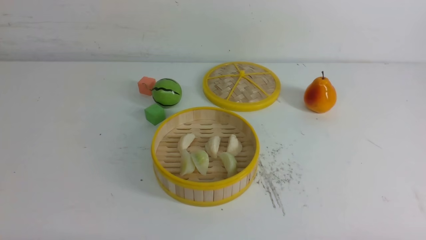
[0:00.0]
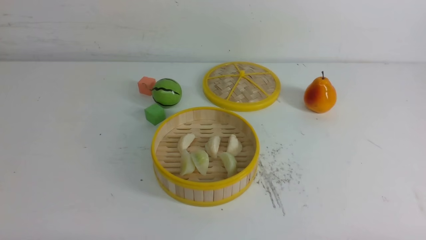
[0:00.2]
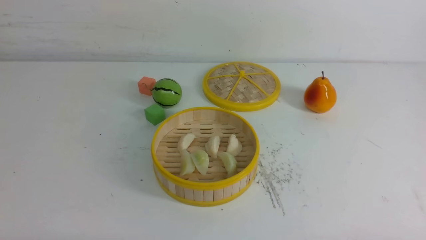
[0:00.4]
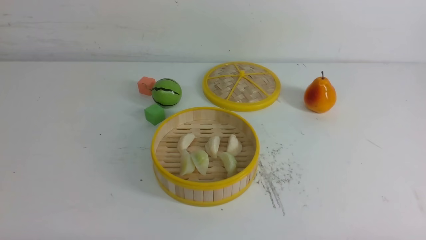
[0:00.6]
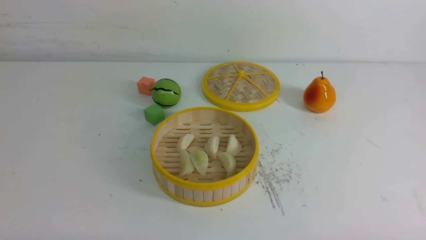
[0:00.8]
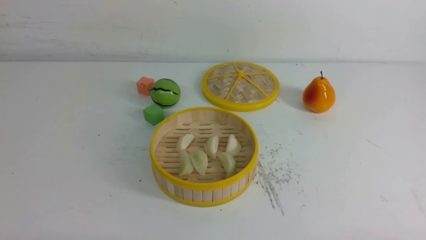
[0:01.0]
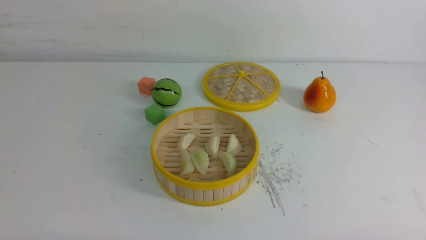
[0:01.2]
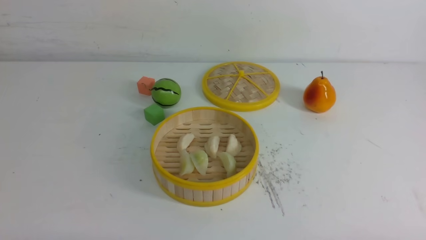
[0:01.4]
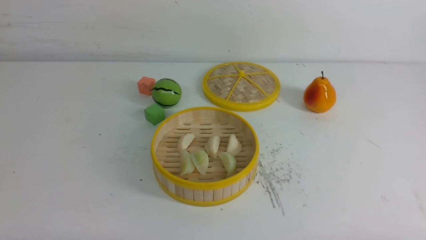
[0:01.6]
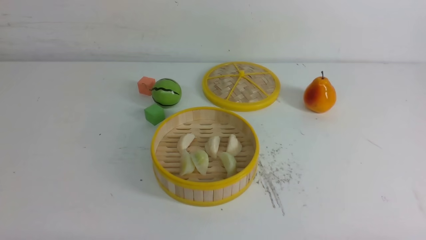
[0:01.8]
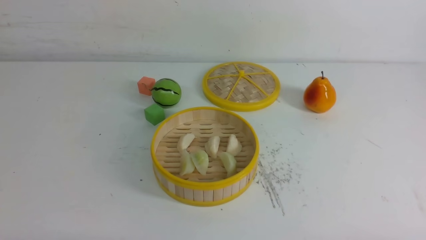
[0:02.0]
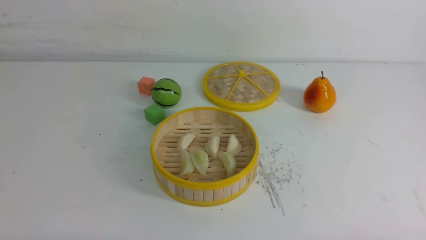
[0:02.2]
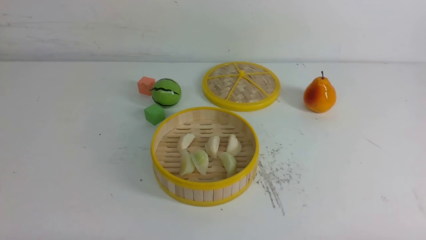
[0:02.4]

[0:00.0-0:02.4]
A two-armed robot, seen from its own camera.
Task of the whole recording: put the dumplings into the steamer on the white table.
0:00.0 to 0:02.4: The two grippers keep their place.

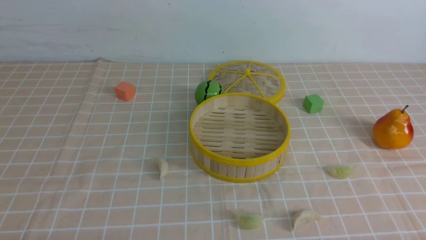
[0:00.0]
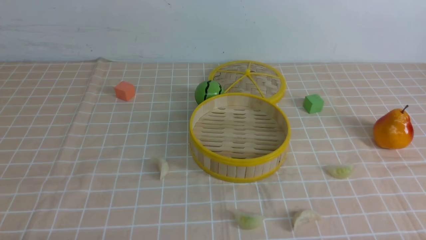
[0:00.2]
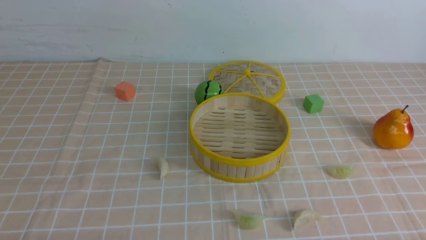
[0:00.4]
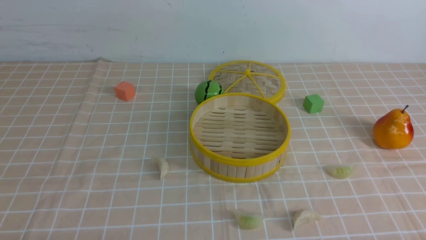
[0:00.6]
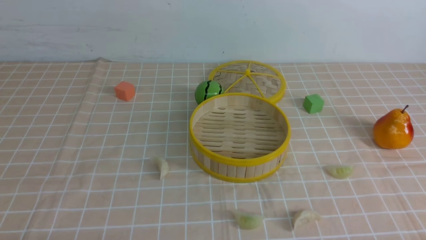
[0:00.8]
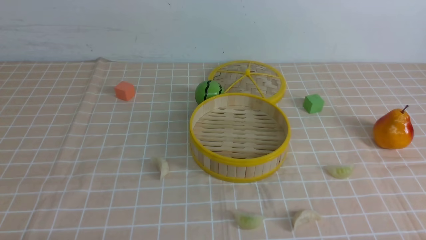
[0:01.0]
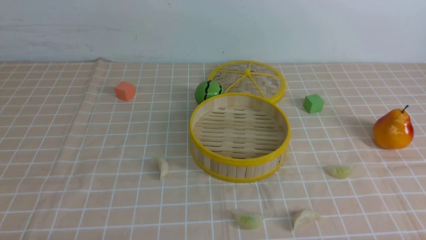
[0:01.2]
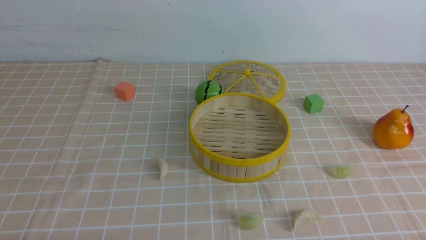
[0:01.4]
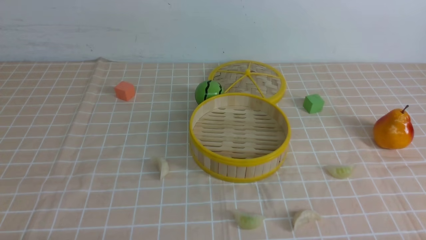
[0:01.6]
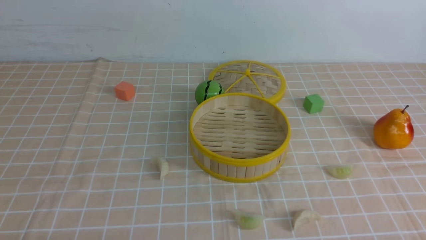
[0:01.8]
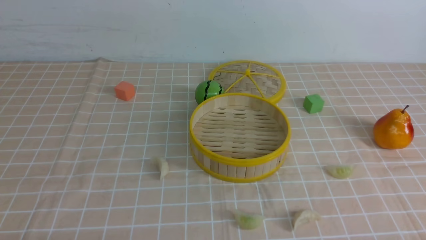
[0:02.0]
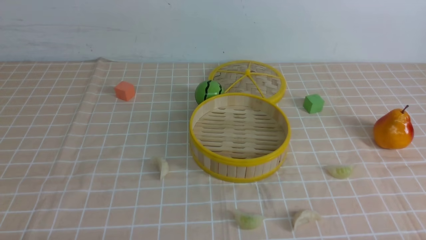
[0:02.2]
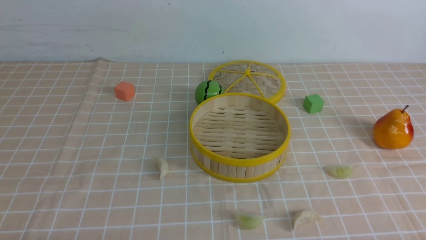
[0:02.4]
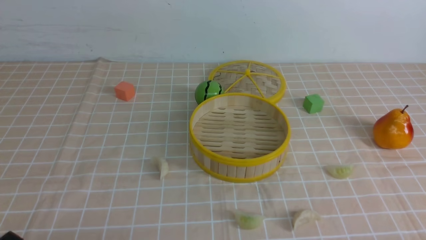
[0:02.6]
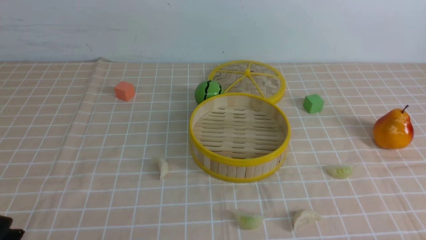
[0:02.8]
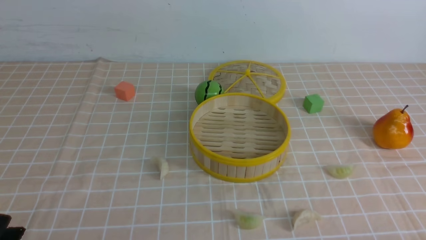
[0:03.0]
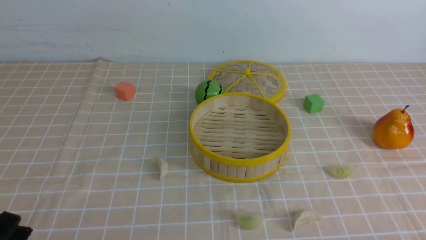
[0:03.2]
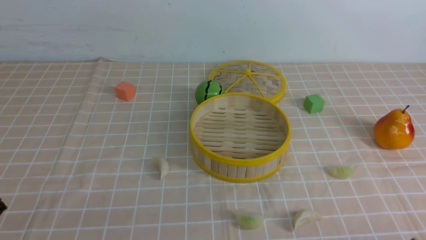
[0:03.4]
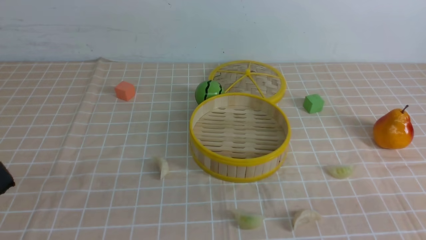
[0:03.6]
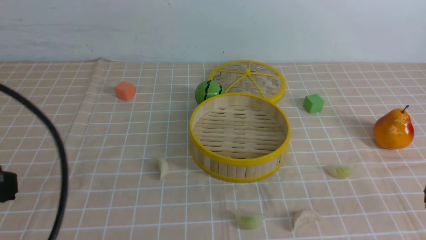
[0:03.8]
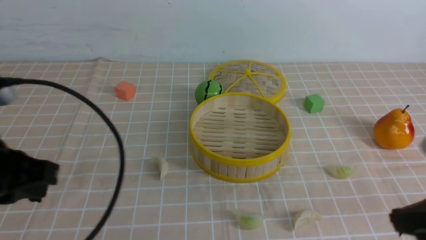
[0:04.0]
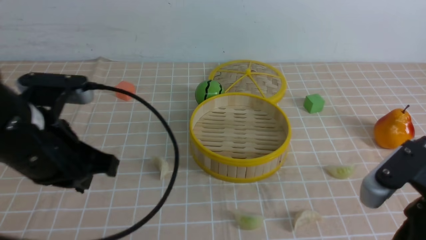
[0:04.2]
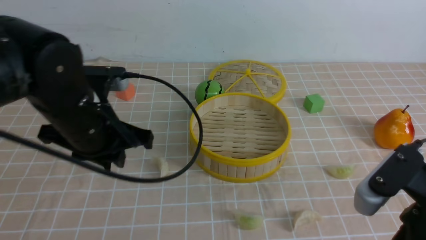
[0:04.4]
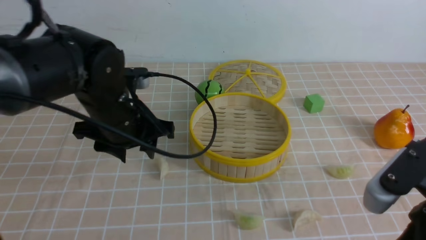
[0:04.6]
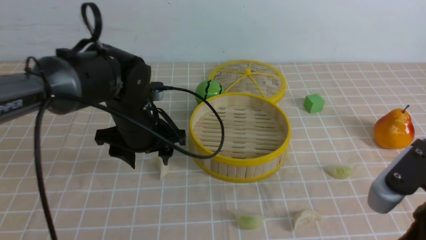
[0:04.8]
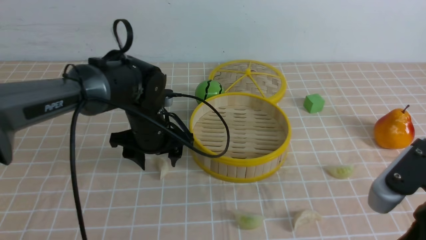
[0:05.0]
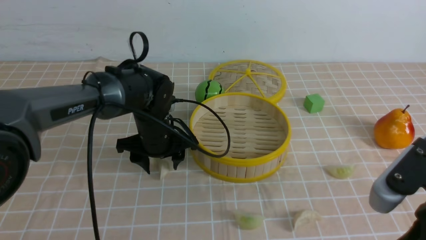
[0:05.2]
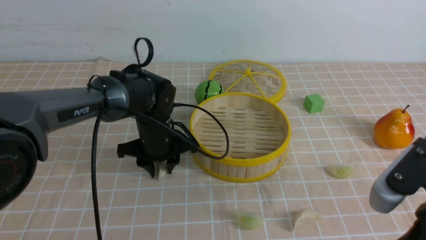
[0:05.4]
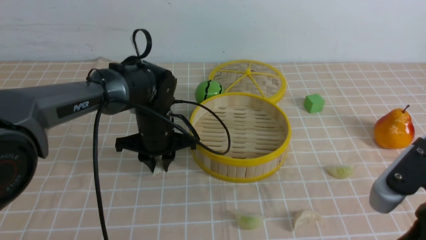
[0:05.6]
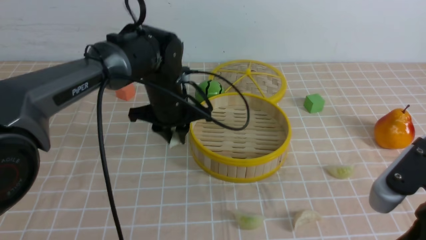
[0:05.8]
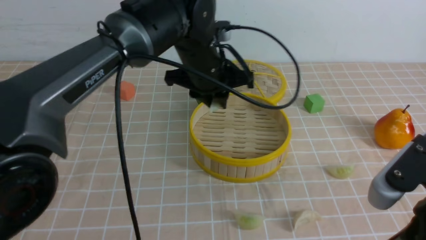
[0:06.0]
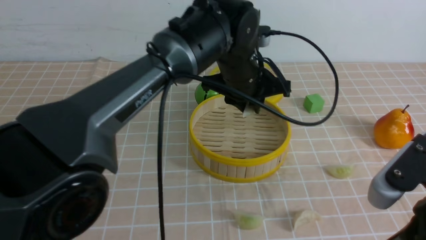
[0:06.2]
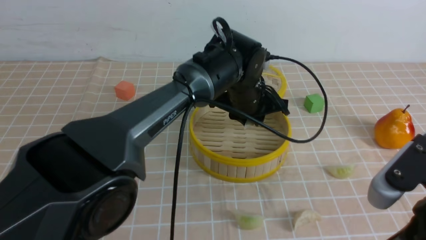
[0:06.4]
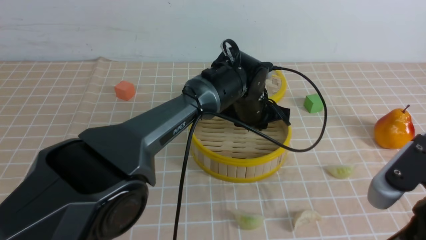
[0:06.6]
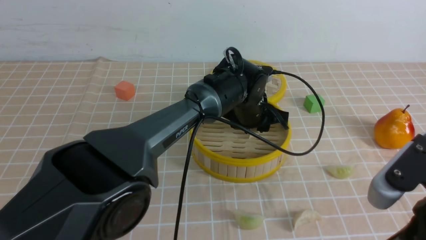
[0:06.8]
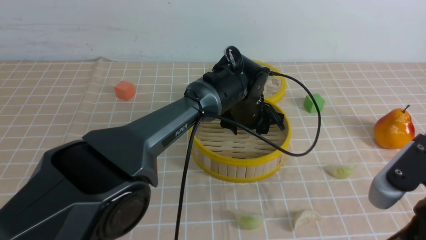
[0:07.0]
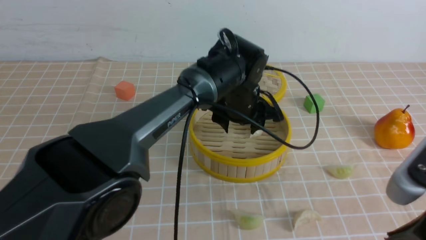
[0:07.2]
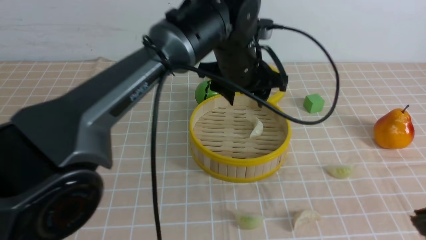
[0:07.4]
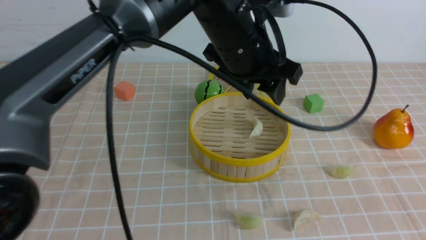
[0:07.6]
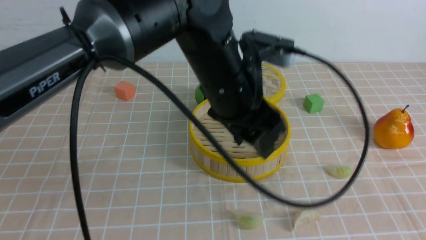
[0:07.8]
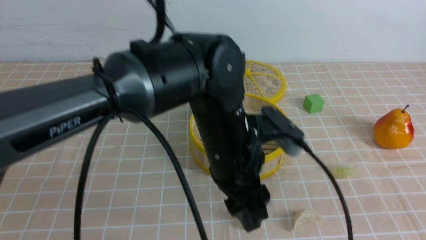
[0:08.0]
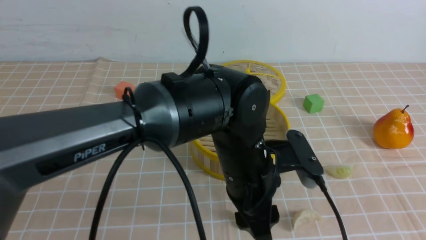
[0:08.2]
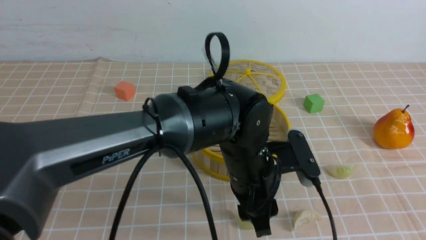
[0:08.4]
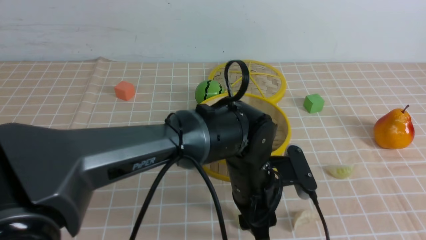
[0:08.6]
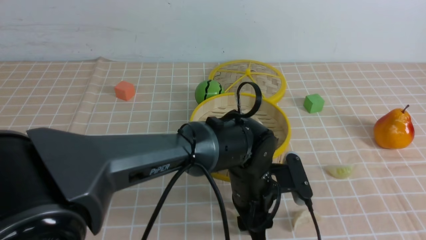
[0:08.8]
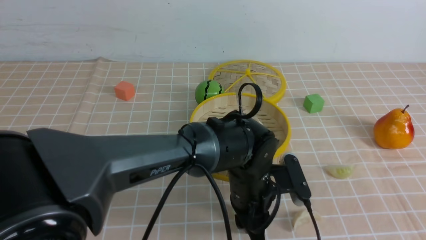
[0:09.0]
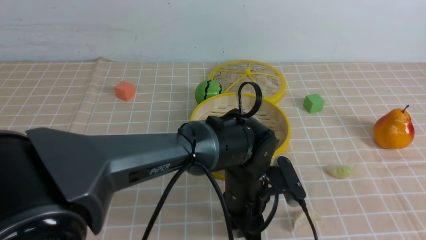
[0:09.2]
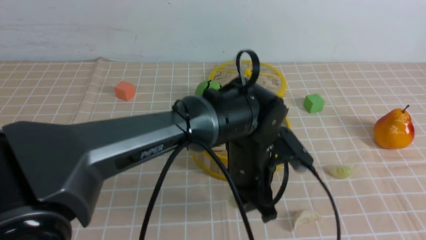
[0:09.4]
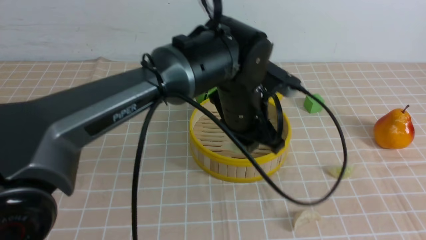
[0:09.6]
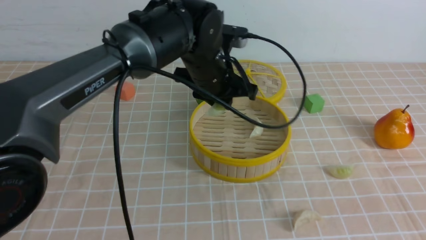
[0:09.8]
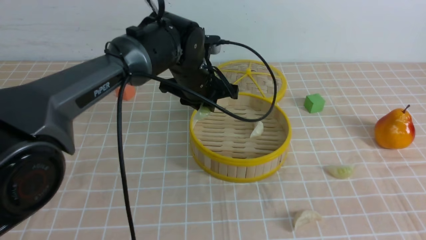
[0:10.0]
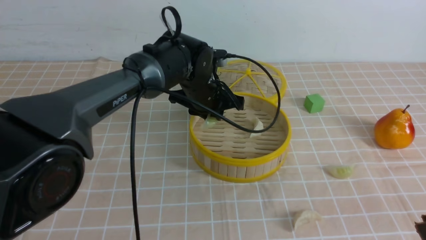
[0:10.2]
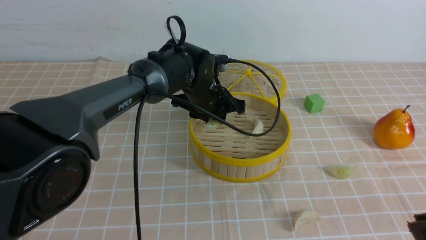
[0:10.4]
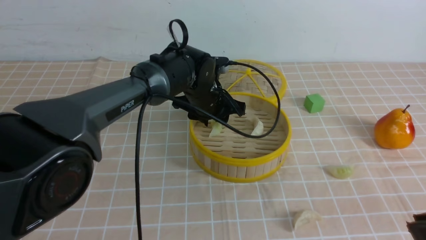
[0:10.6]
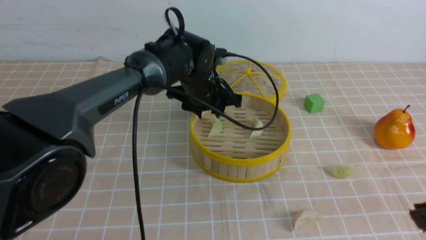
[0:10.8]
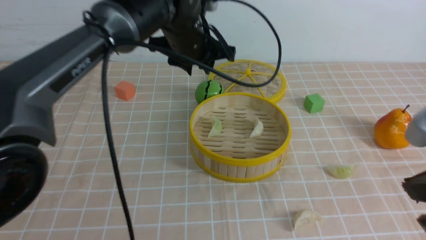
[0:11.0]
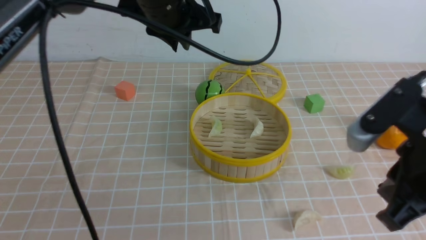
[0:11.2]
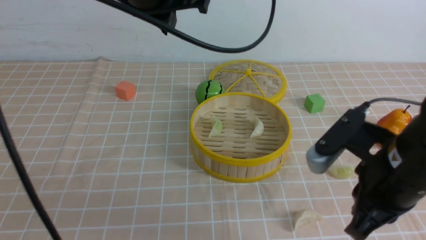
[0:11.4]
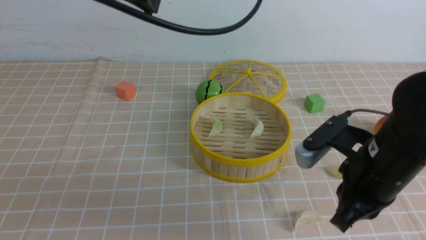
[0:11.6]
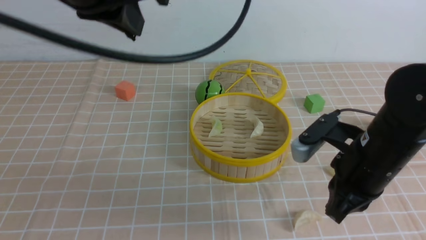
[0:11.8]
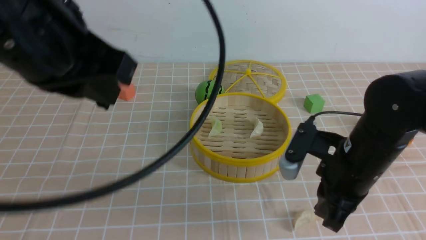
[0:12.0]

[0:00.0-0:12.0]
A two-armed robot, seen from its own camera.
Task of the whole recording: put the dumplings into the steamer on the table with the brown tablecloth.
Step, 0:00.0 to 0:05.4: use the left arm to grab a dumpling.
Step, 0:05.6 to 0:07.0: use the left arm to put the dumpling into the steamer.
Step, 0:07.2 to 0:09.0: use the left arm to grab a dumpling.
Step, 0:09.2 to 0:10.6: use the left arm to put the dumpling into the steamer.
0:03.0 to 0:04.4: The left gripper heads forward, upward and to the right, covering approximately 25 cm. Meanwhile the right gripper heads upward, forward and to the left, covering approximately 15 cm, and closes its fingers.
0:04.4 to 0:06.0: The left gripper moves forward and to the right, approximately 20 cm, and opens, then closes again.
0:06.0 to 0:07.6: The left gripper heads upward and to the right, covering approximately 10 cm, and opens. The right gripper moves roughly 5 cm.
0:07.6 to 0:09.0: The left gripper is displaced downward and backward by approximately 20 cm.
0:09.0 to 0:10.4: The left gripper goes roughly 15 cm forward and to the left.
0:10.4 to 0:12.0: The left gripper goes approximately 35 cm upward, backward and to the left, and closes; the right gripper goes some 20 cm forward, downward and to the left.

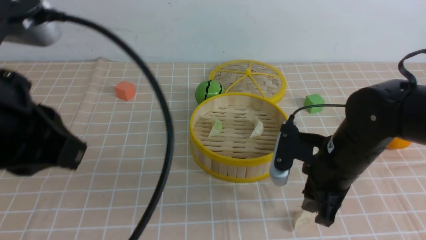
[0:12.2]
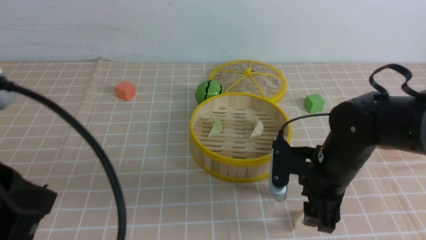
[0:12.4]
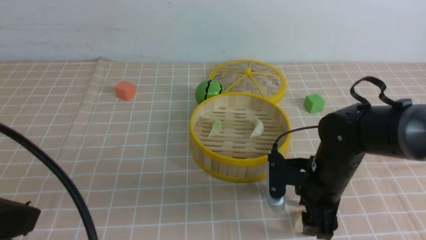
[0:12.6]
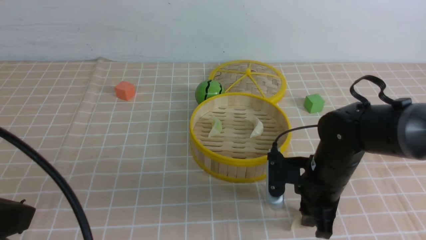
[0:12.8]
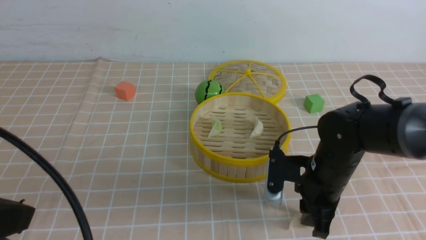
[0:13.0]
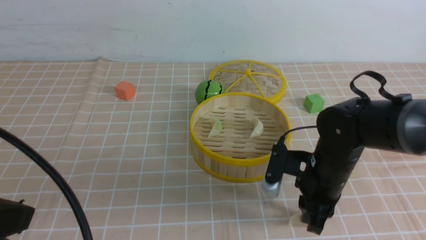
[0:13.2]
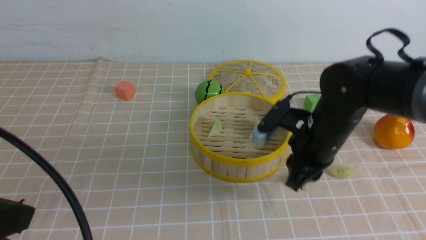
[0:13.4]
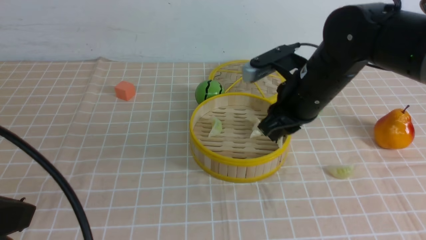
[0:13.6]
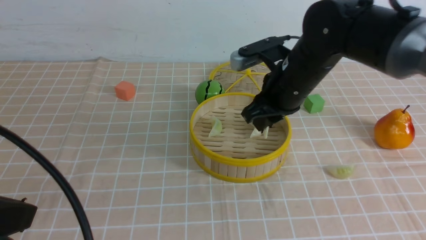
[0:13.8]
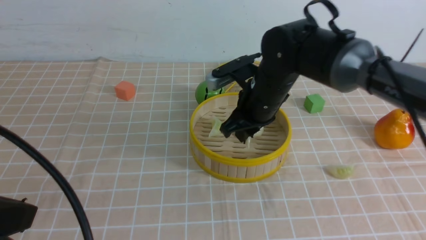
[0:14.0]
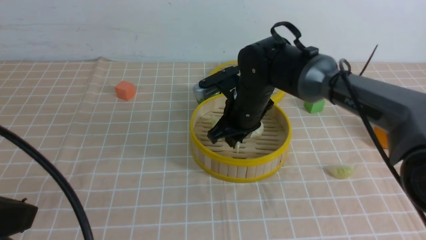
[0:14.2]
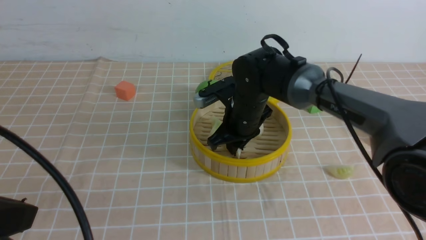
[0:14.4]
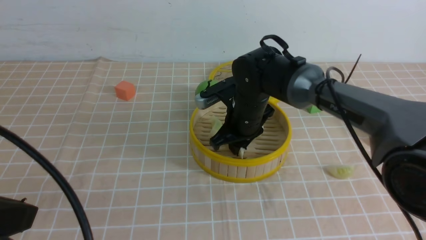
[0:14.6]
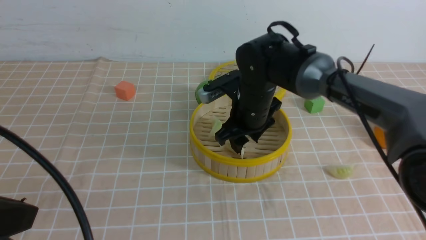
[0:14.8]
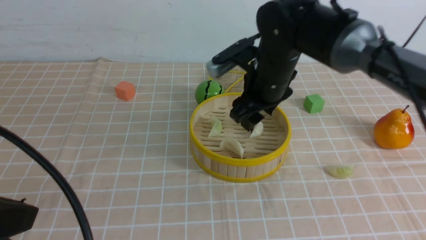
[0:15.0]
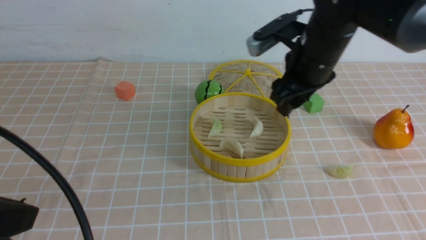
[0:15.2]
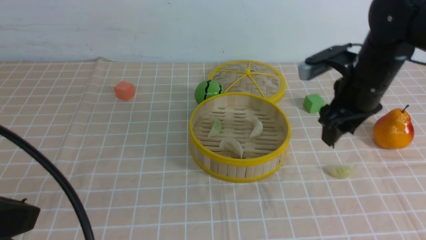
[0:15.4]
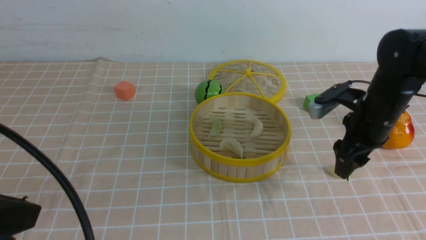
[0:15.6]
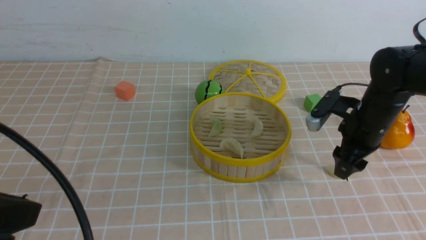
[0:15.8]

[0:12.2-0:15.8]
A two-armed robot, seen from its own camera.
Task of the whole recording: put the dumplings into the steamer on the table with the brown tablecloth.
Step, 0:13.2 to 0:15.2: use the right arm to put the dumpling into the steamer.
0:12.2 to 0:14.0: The right gripper shifts approximately 15 cm forward and to the left, and opens, then closes once more, while the left gripper travels backward, downward and to the left by some 10 cm.
0:14.0 to 0:15.8: The right gripper is displaced to the right by some 15 cm, and opens its fingers.
